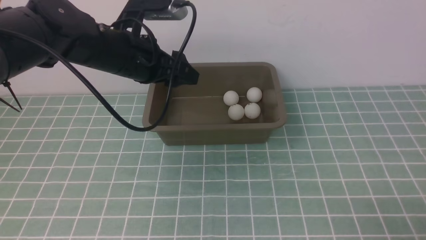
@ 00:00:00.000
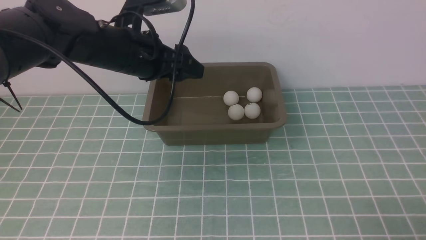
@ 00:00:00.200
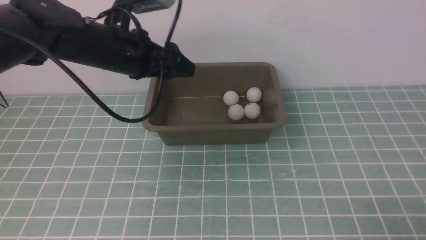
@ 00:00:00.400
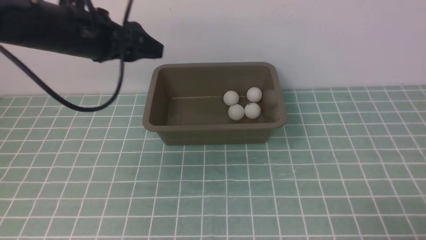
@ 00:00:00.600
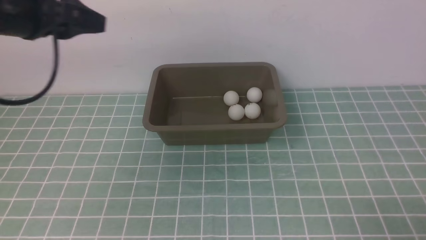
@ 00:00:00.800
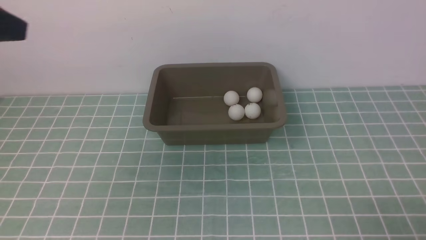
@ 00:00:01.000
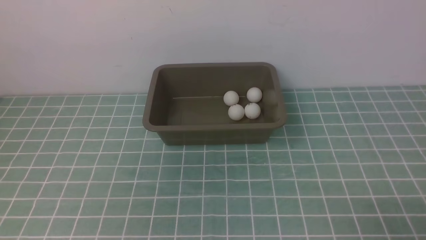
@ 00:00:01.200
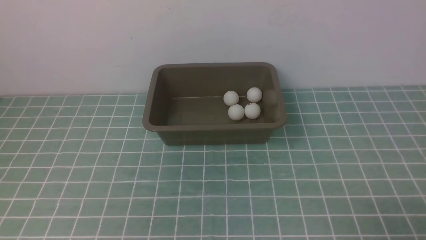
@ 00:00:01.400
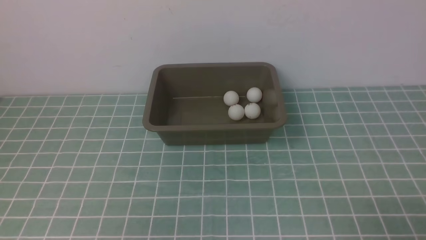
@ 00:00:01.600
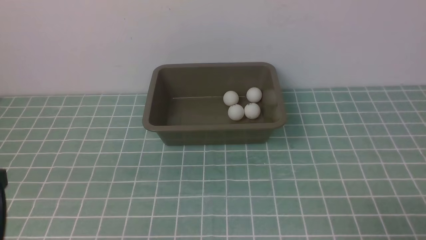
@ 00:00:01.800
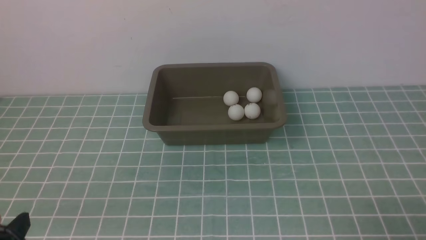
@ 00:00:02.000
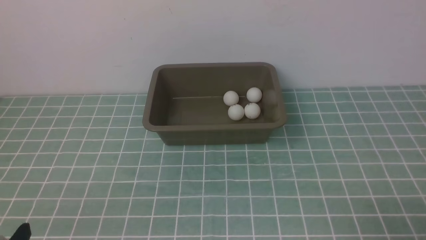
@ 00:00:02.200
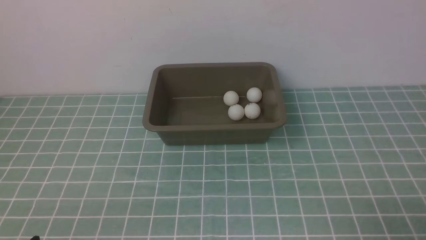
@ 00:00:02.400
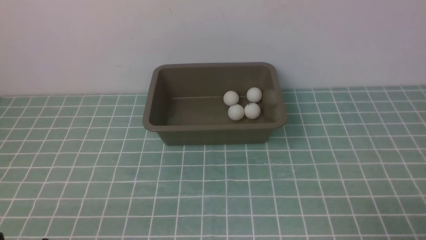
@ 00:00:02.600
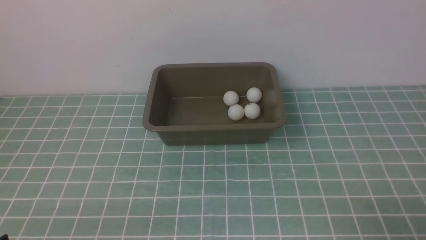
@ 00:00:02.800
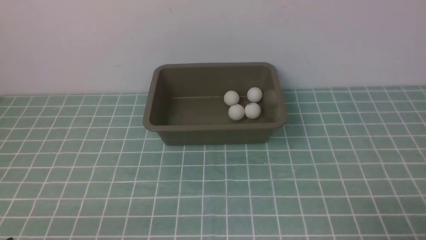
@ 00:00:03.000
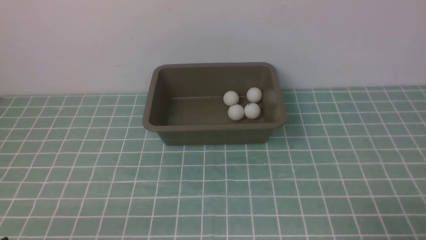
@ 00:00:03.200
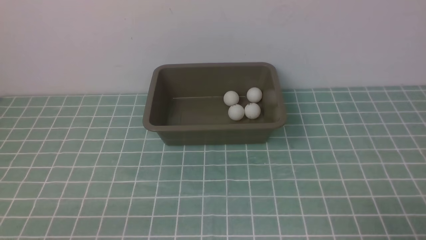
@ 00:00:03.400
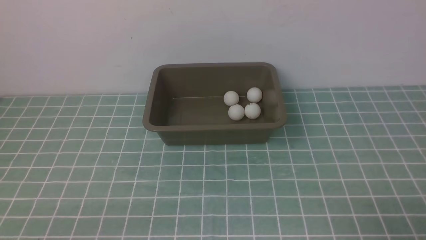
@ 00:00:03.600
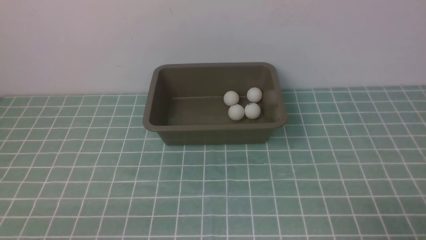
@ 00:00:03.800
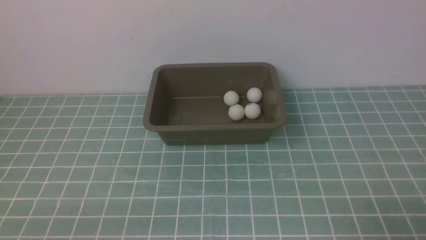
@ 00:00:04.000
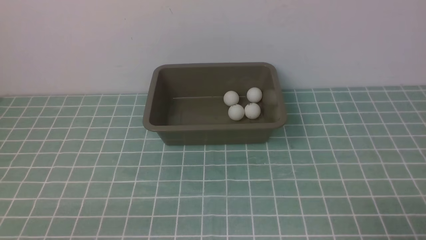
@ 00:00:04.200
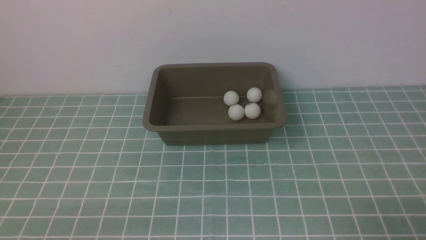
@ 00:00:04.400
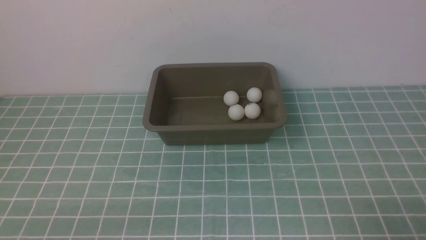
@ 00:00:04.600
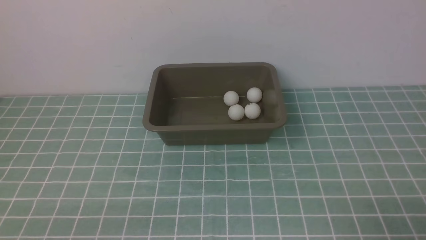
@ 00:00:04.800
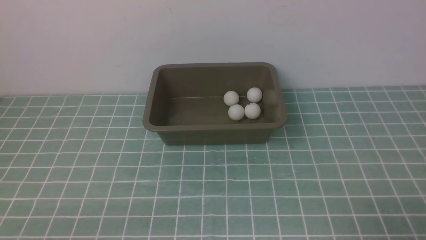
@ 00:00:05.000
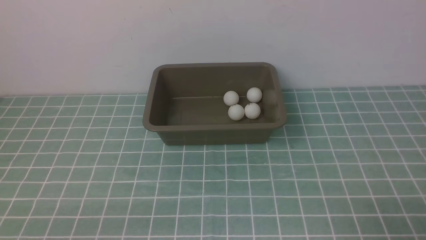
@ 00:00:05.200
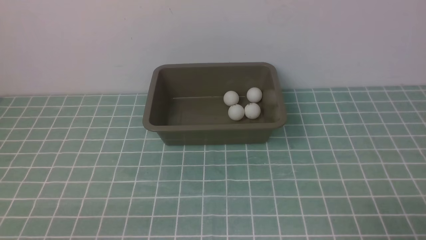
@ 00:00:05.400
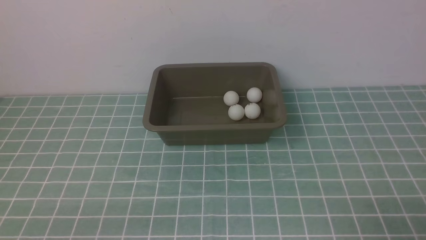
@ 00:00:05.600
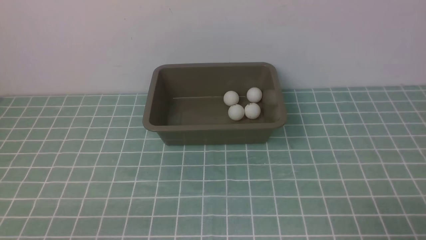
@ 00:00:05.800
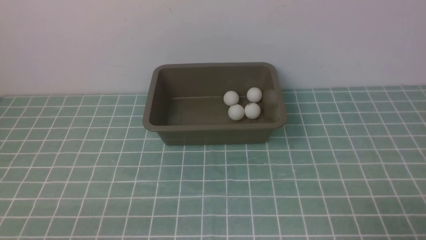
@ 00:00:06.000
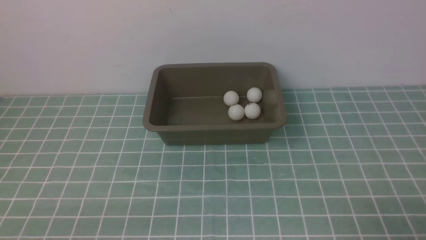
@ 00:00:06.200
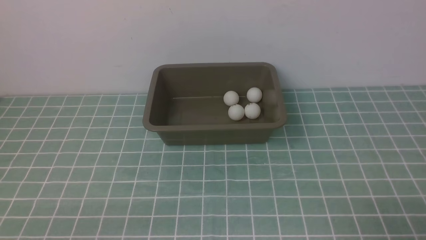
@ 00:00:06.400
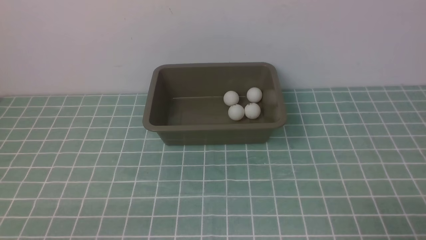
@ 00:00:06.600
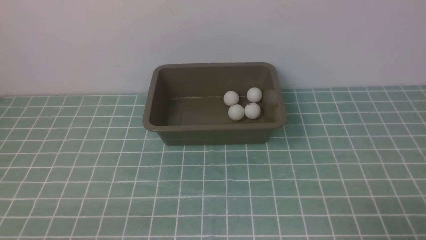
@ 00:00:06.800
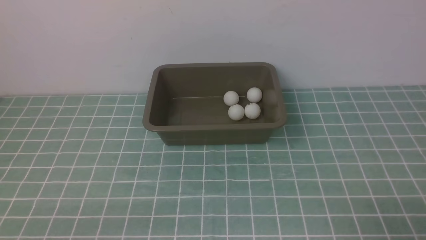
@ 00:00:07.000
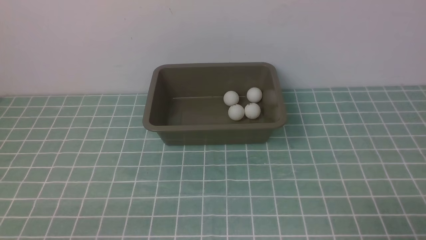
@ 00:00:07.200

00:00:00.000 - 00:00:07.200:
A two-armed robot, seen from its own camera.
00:00:00.000 - 00:00:01.400: The left gripper goes roughly 30 cm backward and to the left.
00:00:04.400 - 00:00:07.200: The two grippers keep their place.
